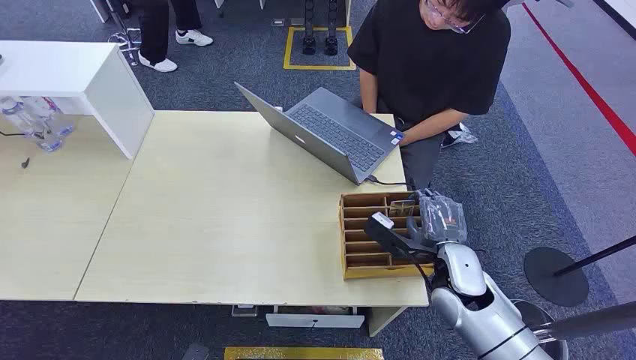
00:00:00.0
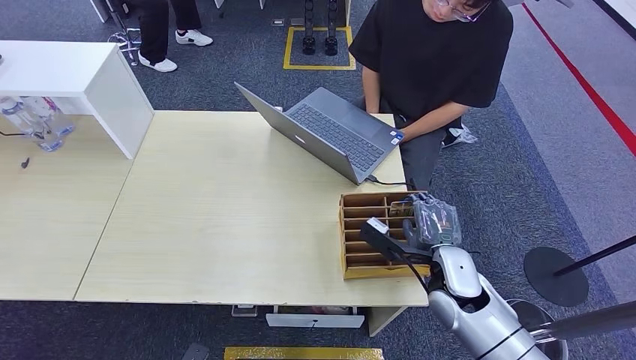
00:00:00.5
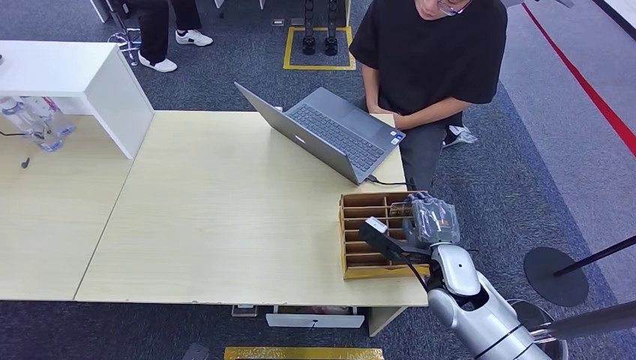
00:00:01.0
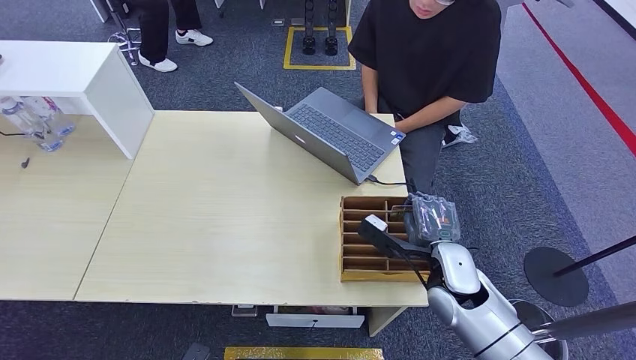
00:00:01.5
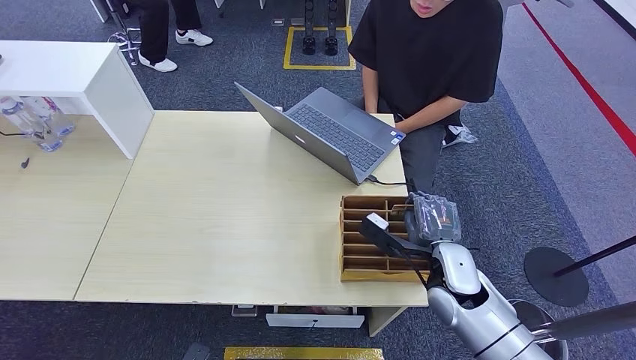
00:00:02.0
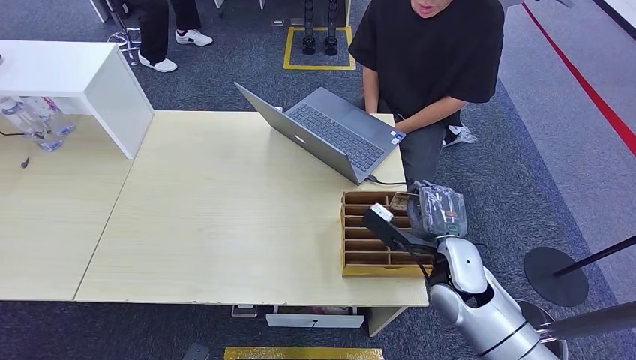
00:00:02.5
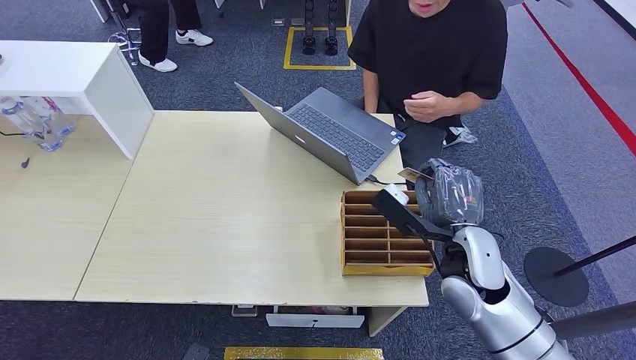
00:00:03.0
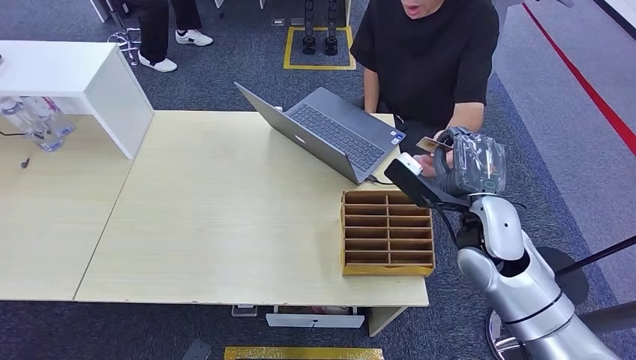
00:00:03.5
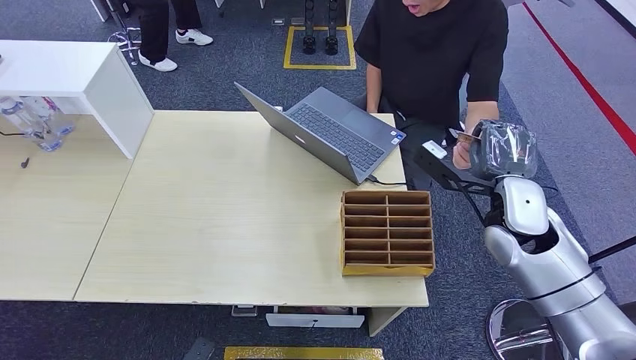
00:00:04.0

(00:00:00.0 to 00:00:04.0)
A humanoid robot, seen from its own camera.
Step, 00:00:00.0 - 00:00:02.0: Pick up the room card from the card holder.
Step, 00:00:03.0 - 00:00:04.0: Hand the room card to the target.
00:00:02.0 - 00:00:04.0: The right hand goes roughly 15 cm upward, to the right and forward.
